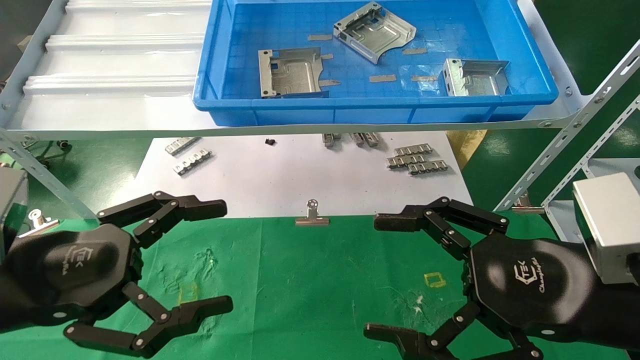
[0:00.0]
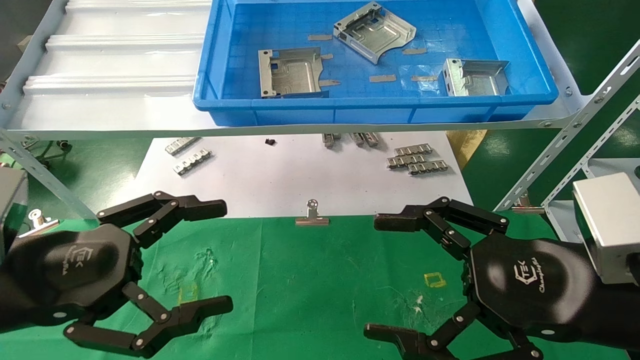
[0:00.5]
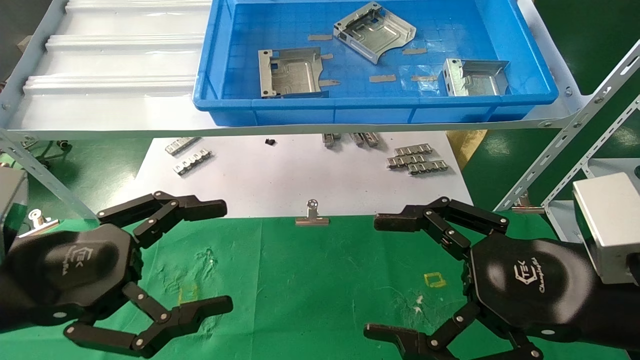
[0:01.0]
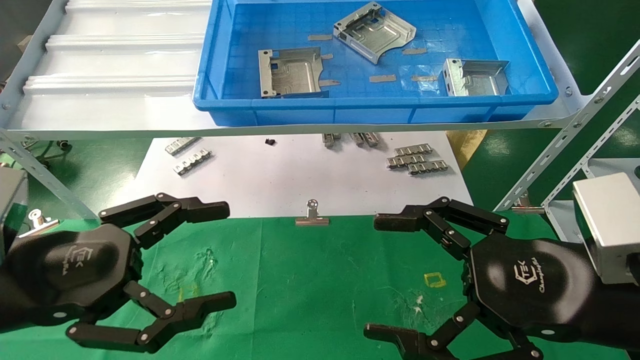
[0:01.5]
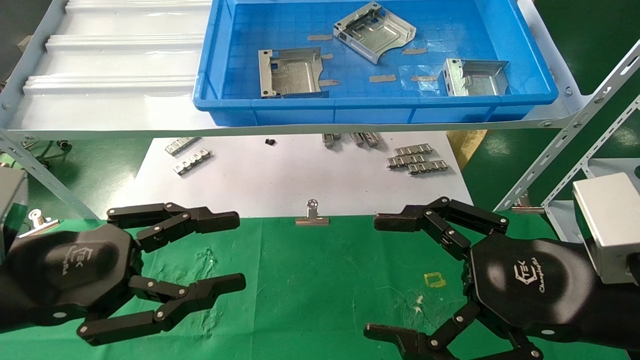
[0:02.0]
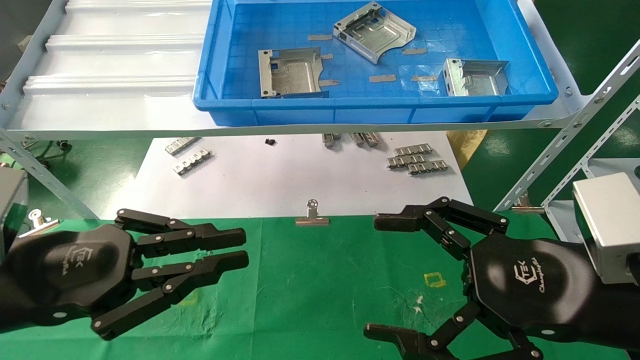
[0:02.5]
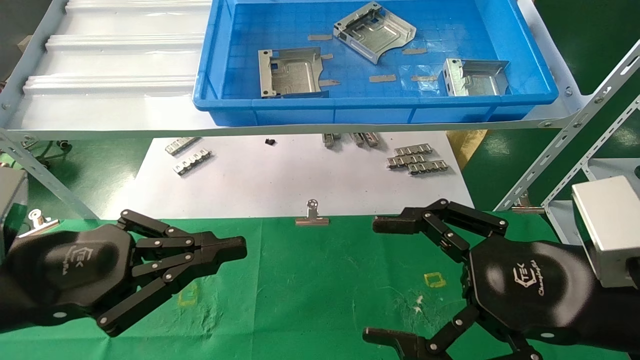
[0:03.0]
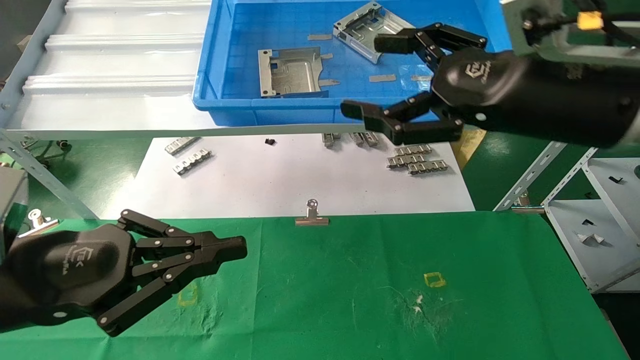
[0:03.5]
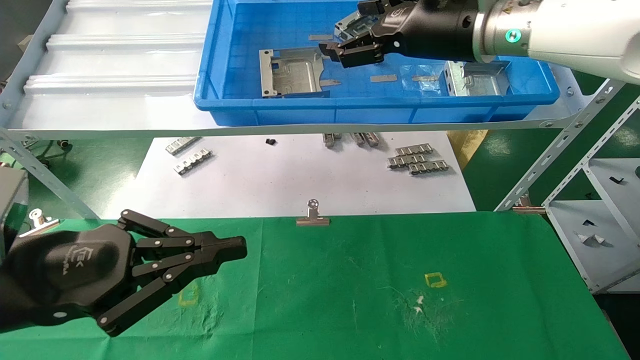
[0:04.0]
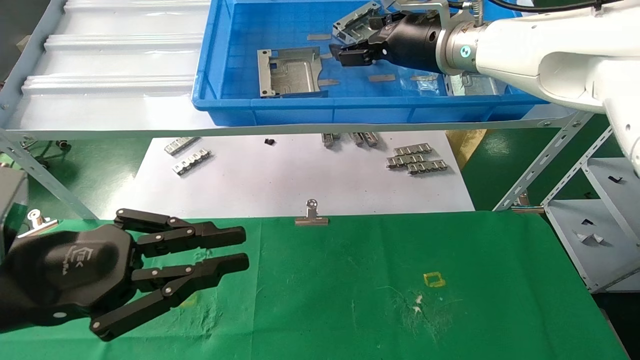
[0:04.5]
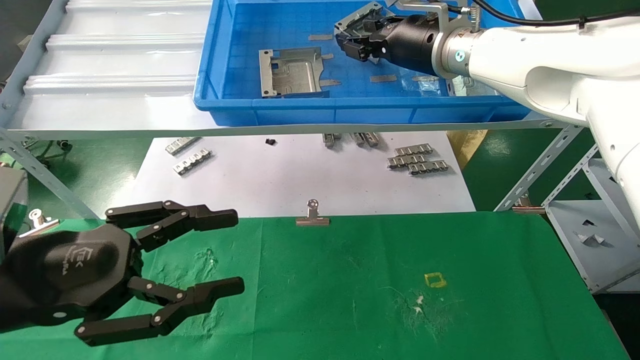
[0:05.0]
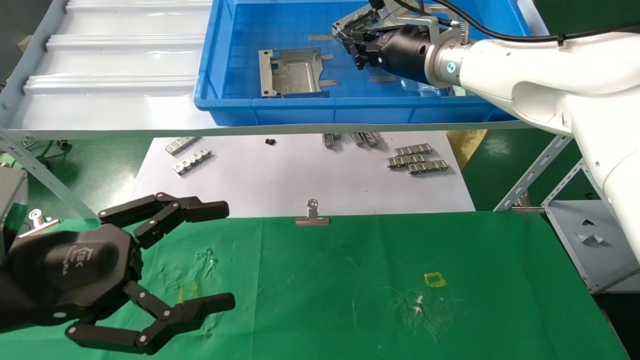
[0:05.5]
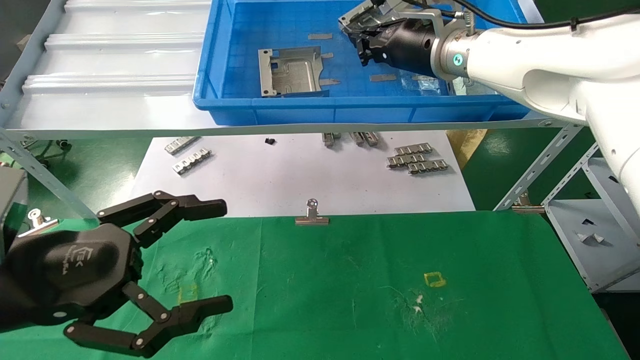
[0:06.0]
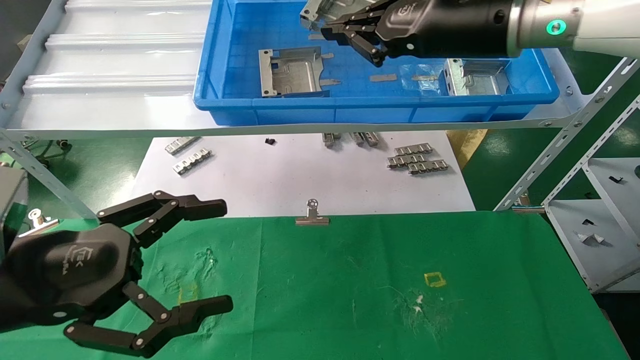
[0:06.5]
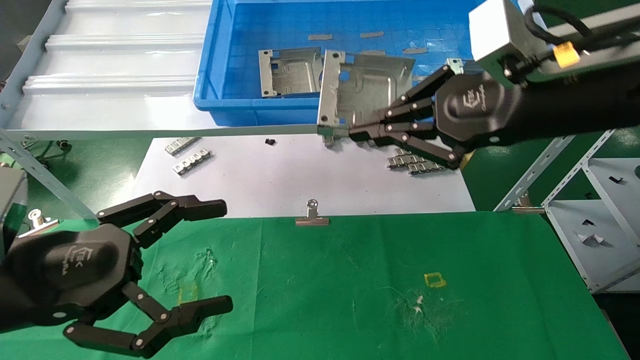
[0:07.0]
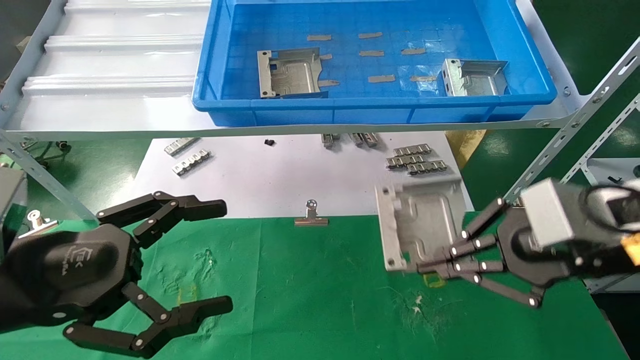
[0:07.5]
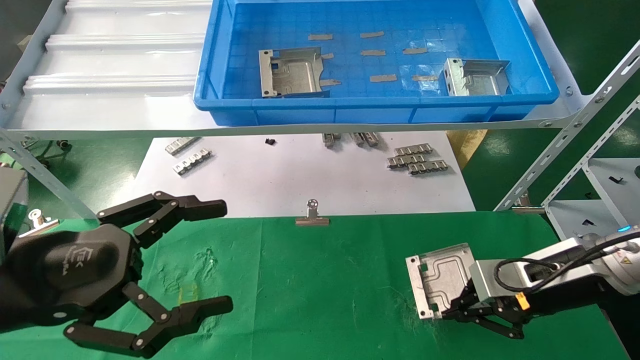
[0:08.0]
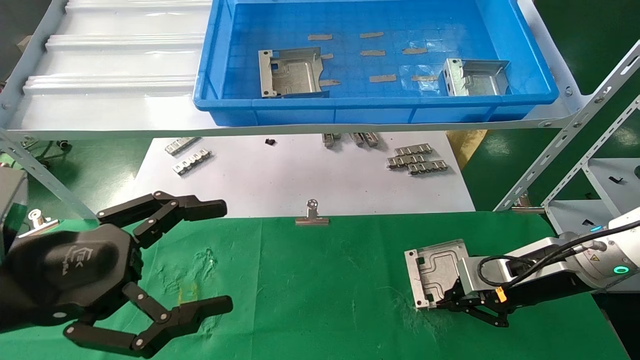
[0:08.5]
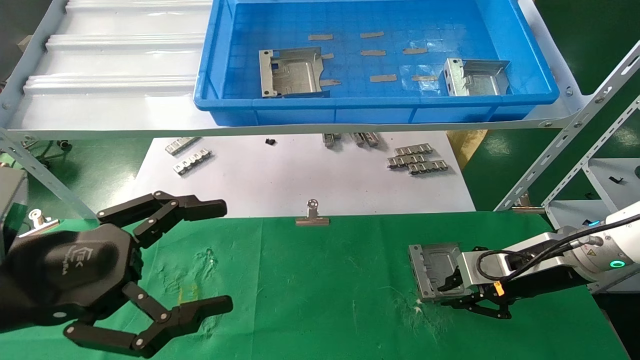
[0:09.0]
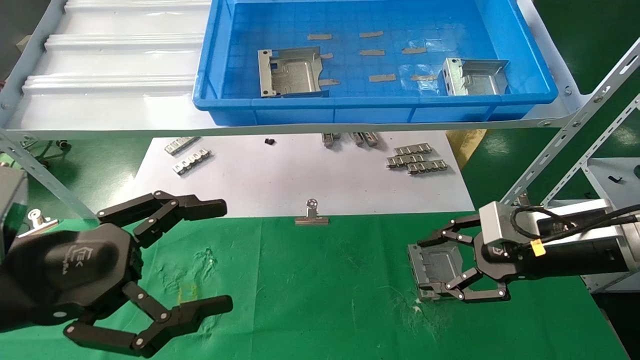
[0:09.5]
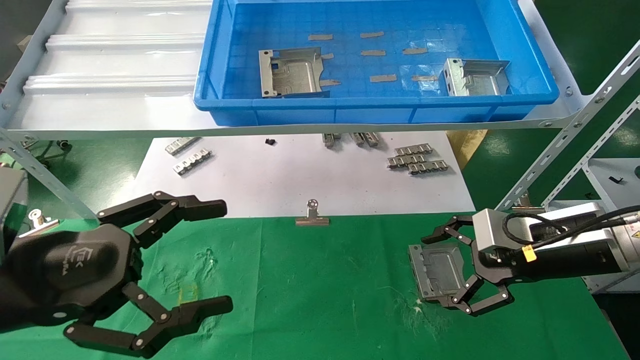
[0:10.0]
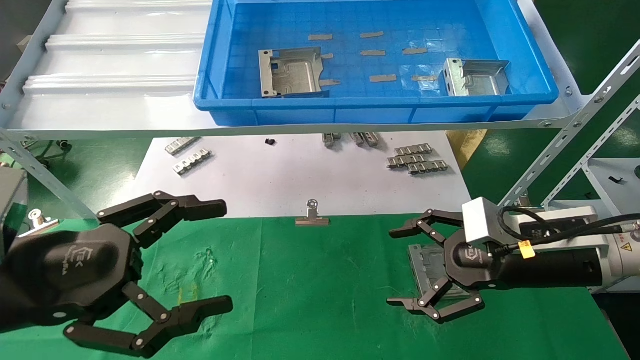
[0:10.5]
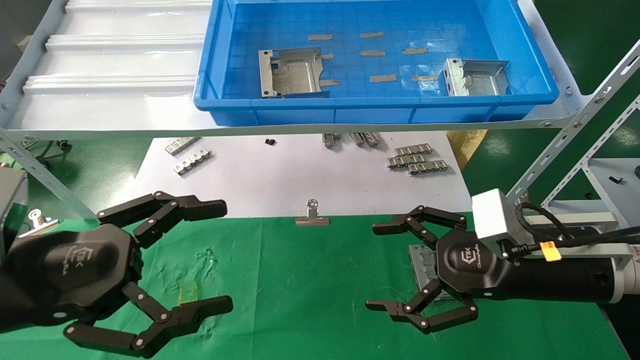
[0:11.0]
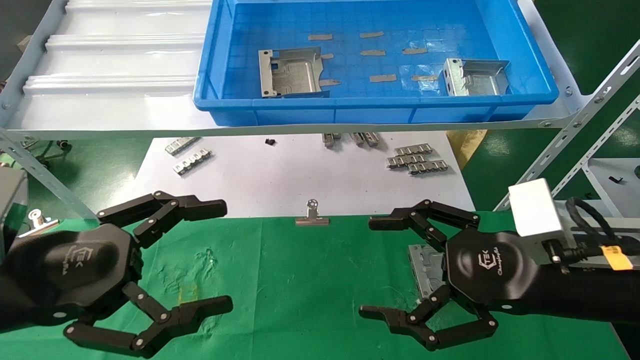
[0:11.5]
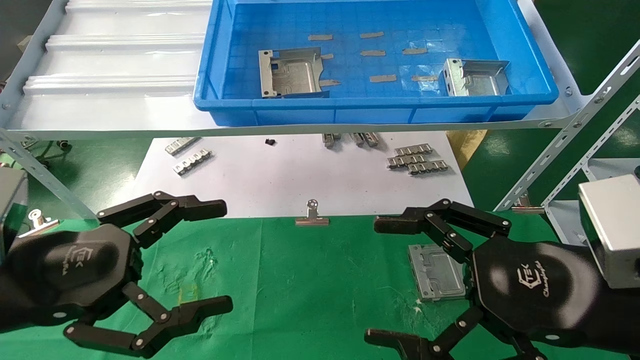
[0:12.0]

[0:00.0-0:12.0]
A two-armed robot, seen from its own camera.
Task of the whole recording: use the mechanical arm to pick up the parts and place them on the table.
Step, 0:02.0 to 0:06.0: Pick up the hard drive bracket from the feeding area.
Step, 0:06.5 to 0:09.5: Place the hard drive bracket into the box.
0:00.0 to 0:02.0: Both grippers stay put.
0:02.0 to 0:04.0: The left gripper closes; the right gripper moves forward and upward, some 30 cm.
0:04.0 to 0:06.0: The right gripper shifts by roughly 5 cm, and closes up, while the left gripper opens up.
0:06.0 to 0:08.0: The right gripper heads downward, to the right and backward, covering approximately 30 cm.
0:08.0 to 0:10.0: The right gripper opens.
0:10.0 to 0:12.0: The right gripper shifts roughly 15 cm backward and to the left.
